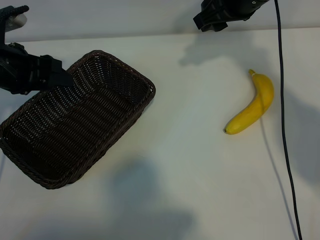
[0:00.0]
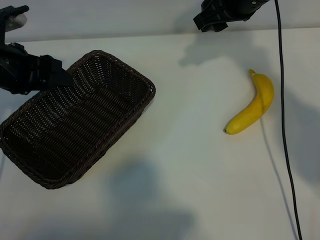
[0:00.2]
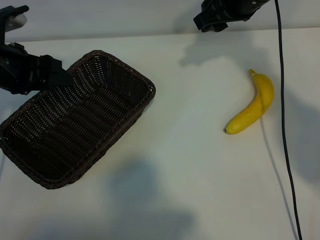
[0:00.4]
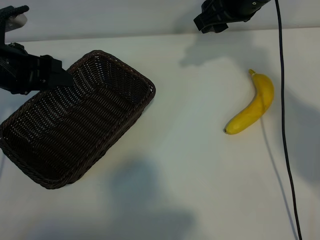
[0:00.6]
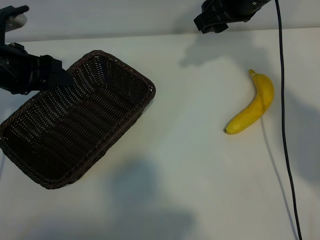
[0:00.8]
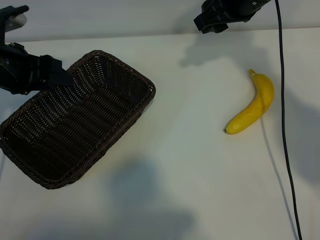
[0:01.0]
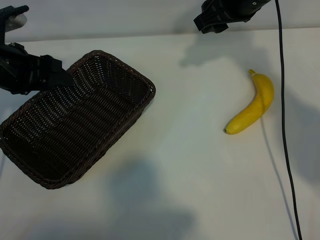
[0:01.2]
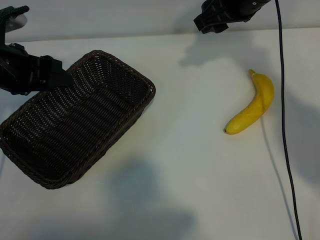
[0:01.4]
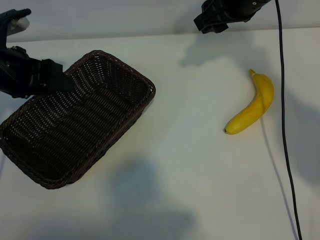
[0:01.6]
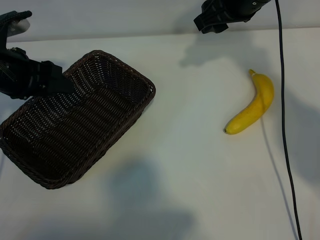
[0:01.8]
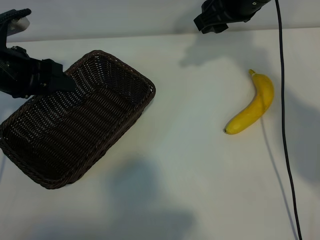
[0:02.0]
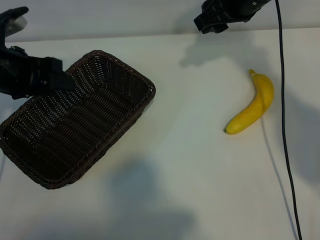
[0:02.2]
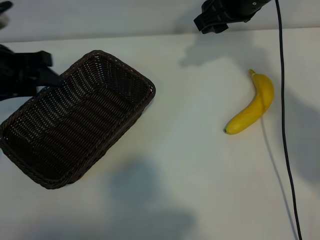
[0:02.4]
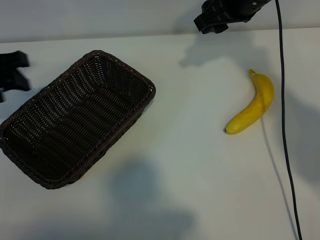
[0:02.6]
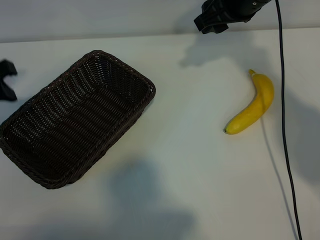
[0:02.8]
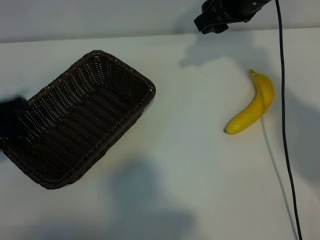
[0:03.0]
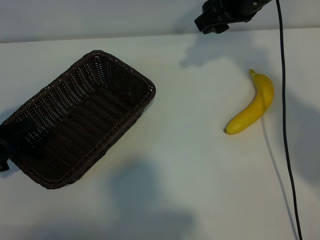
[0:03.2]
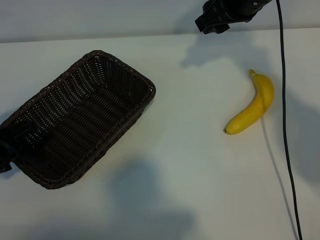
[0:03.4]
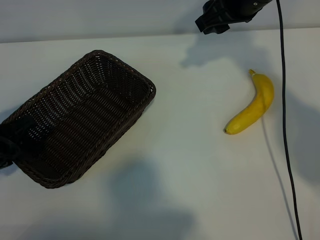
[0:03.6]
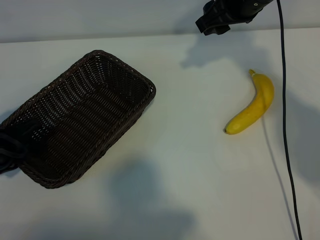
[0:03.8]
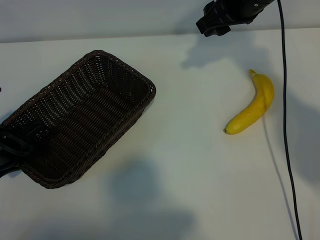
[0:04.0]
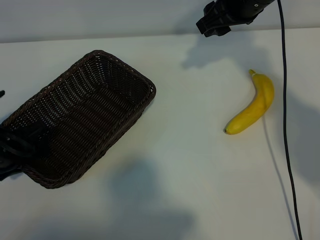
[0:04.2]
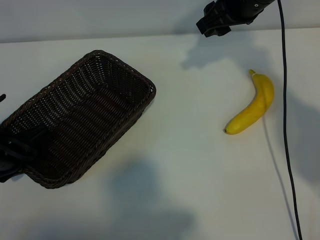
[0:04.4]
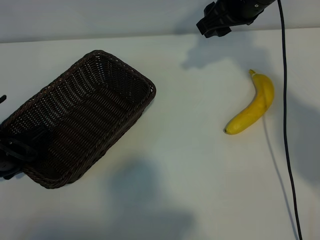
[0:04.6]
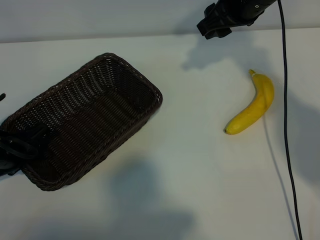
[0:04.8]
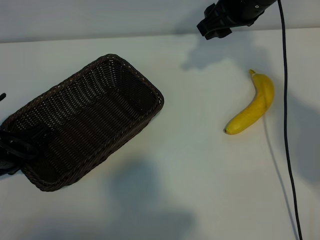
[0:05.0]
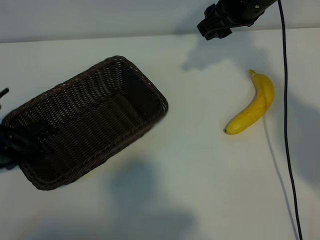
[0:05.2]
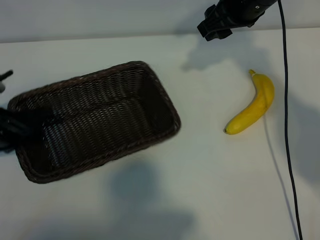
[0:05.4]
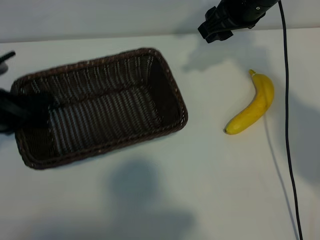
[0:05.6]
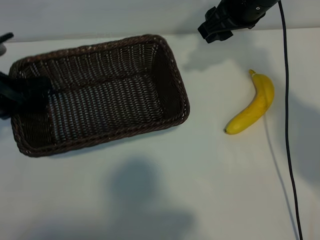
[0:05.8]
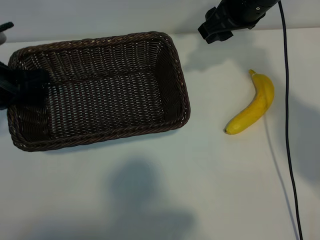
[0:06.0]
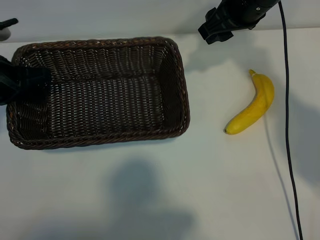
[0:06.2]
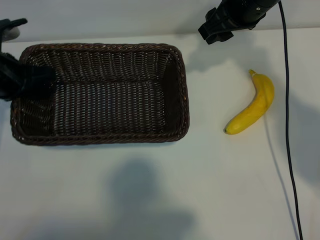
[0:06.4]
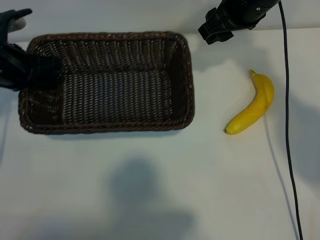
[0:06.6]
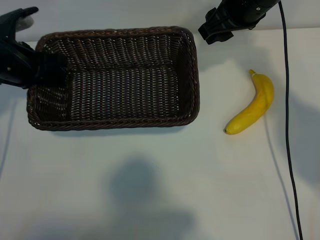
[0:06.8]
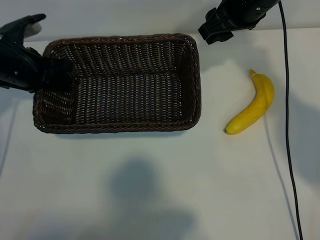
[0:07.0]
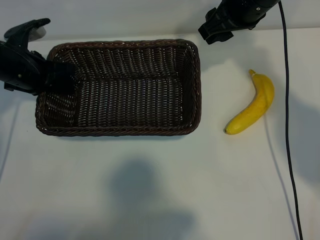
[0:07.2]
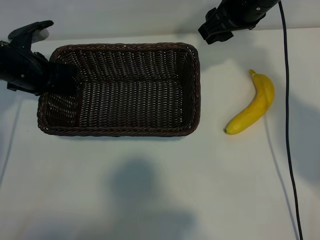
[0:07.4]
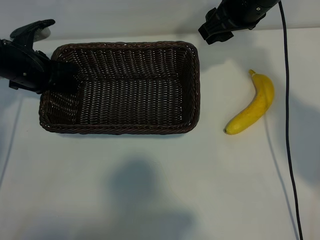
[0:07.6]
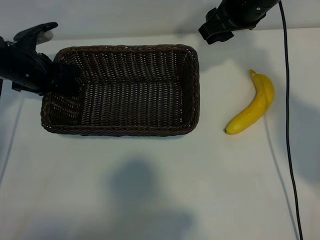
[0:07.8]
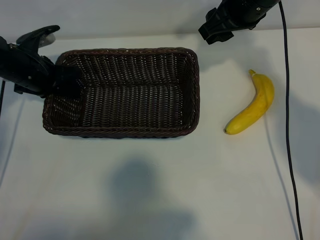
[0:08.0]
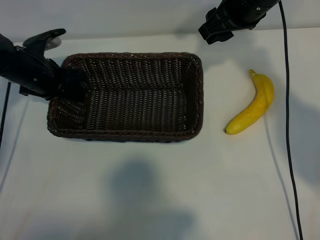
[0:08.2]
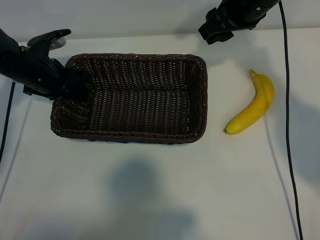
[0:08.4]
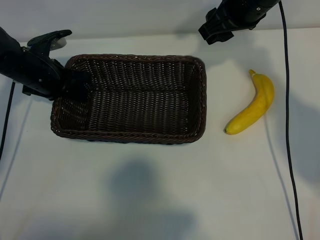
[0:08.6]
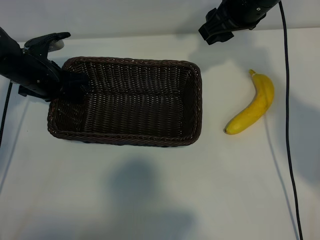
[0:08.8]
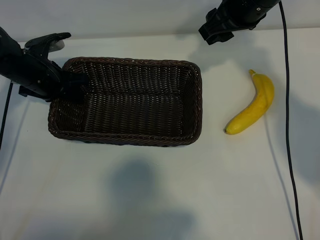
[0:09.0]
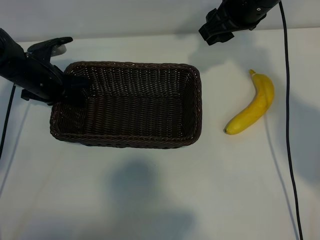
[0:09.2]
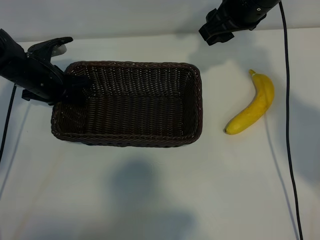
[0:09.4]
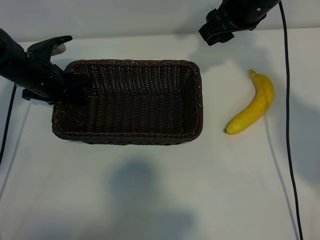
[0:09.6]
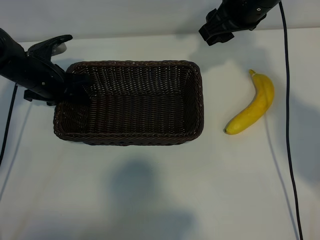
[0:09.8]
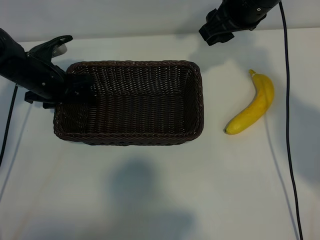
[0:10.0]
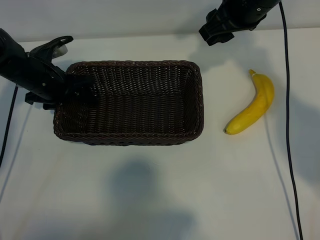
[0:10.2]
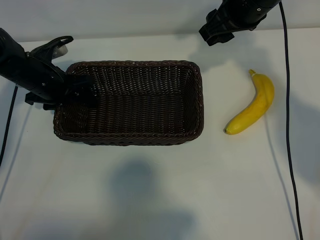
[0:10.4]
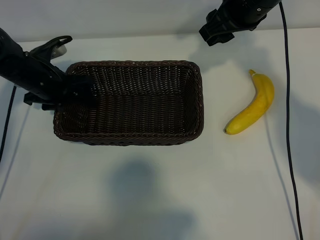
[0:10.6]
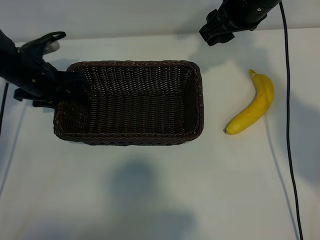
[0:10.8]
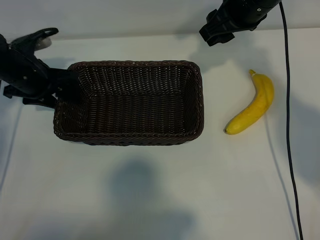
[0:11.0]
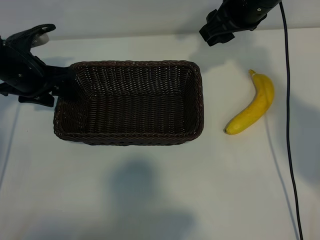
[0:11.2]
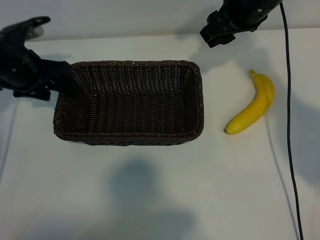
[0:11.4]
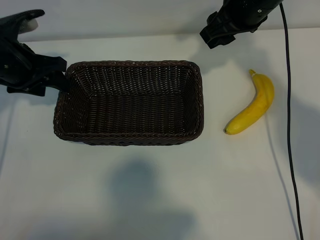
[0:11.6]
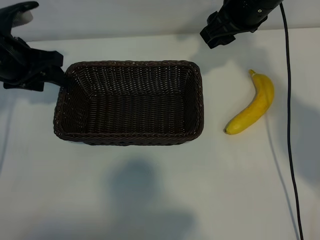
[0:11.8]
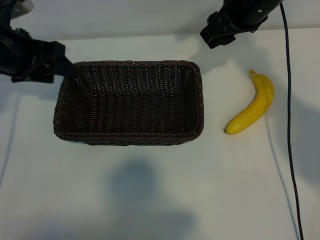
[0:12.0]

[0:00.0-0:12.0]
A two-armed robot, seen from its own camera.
Task of the whole recording: pick up the banana and put it into the basket.
Step, 0:01.4 to 0:05.0: Grasp the basket with the left gripper.
Step, 0:05.2 to 0:10.6: Place the basket in the center of the table with the left gripper.

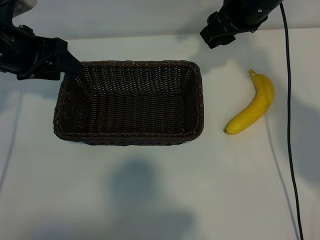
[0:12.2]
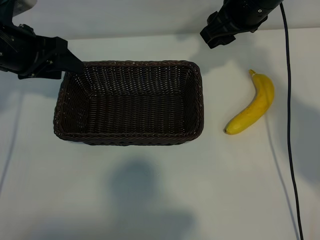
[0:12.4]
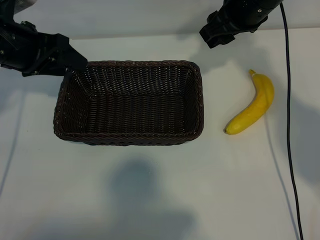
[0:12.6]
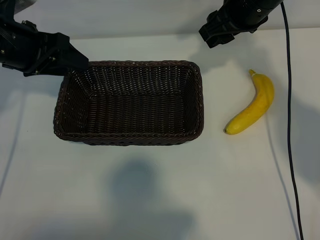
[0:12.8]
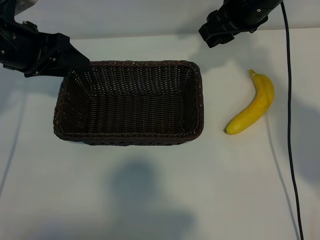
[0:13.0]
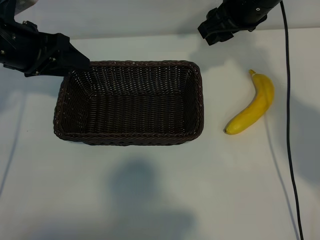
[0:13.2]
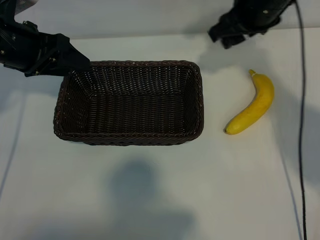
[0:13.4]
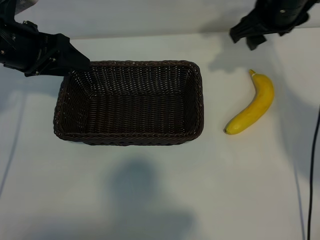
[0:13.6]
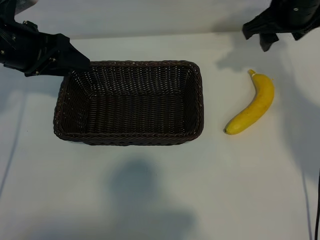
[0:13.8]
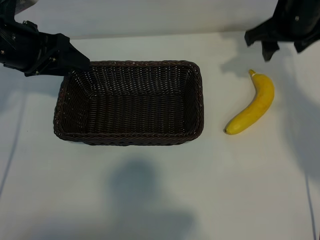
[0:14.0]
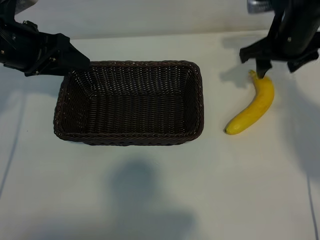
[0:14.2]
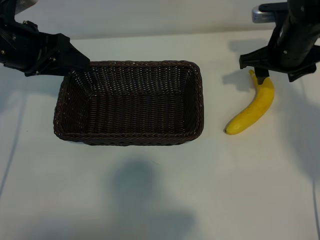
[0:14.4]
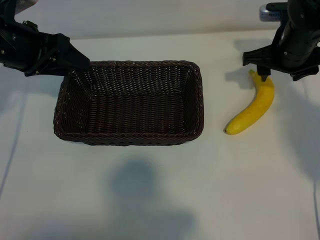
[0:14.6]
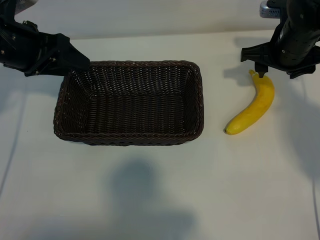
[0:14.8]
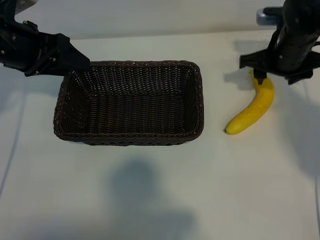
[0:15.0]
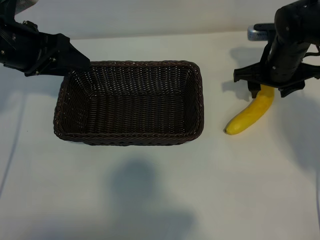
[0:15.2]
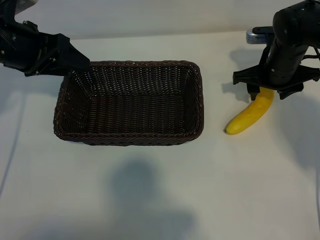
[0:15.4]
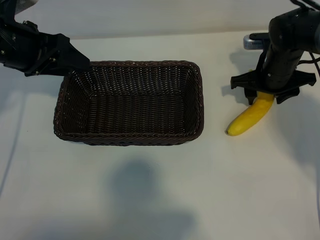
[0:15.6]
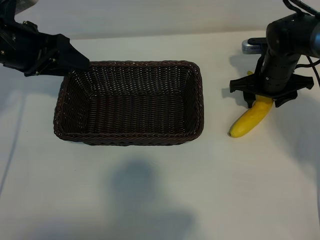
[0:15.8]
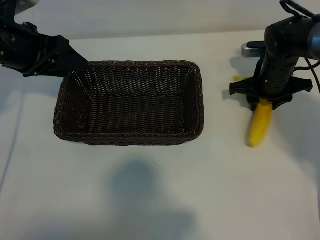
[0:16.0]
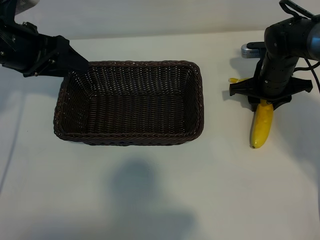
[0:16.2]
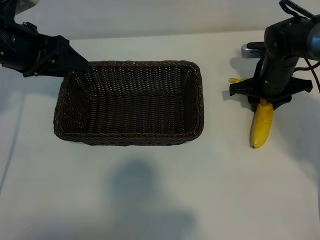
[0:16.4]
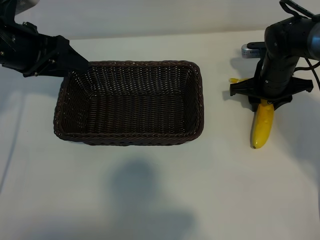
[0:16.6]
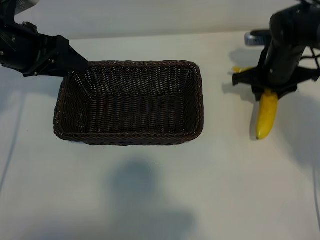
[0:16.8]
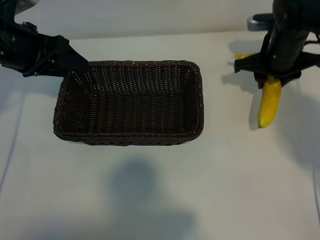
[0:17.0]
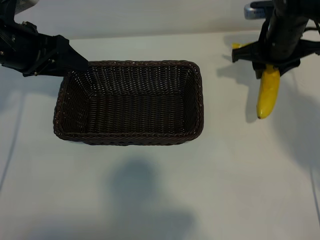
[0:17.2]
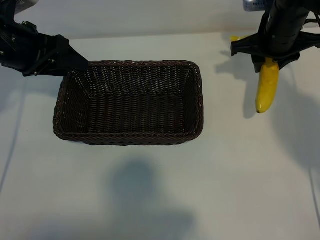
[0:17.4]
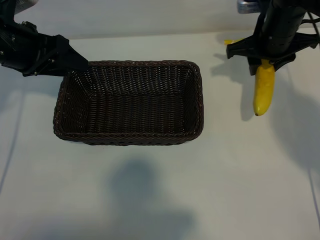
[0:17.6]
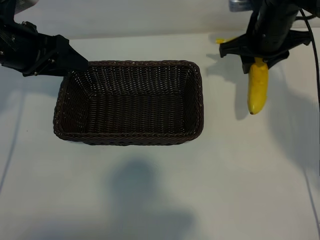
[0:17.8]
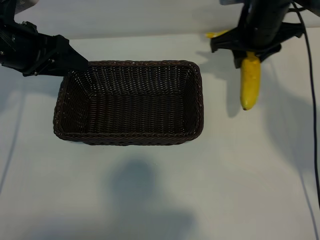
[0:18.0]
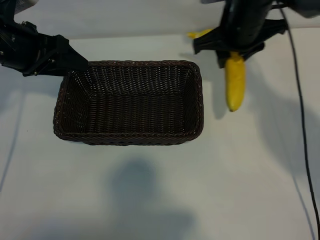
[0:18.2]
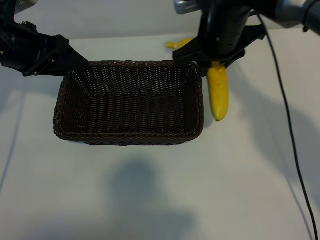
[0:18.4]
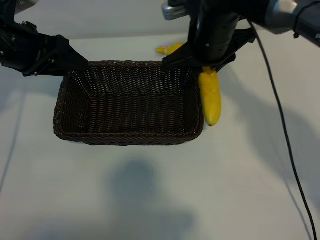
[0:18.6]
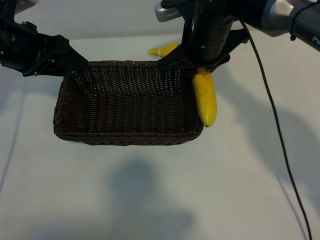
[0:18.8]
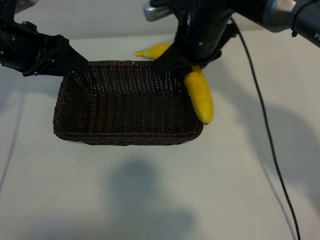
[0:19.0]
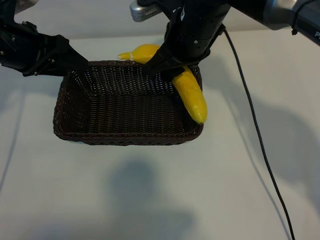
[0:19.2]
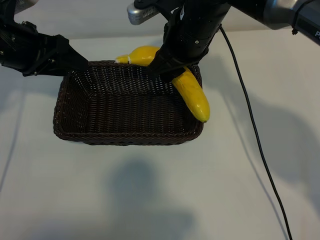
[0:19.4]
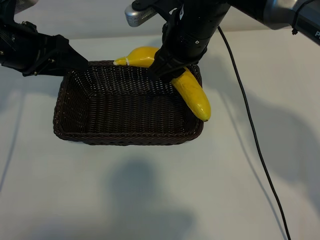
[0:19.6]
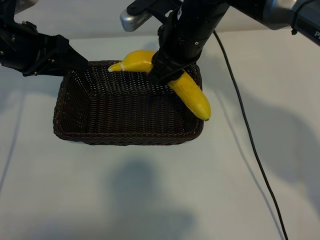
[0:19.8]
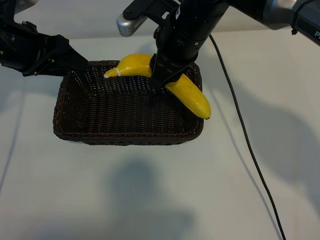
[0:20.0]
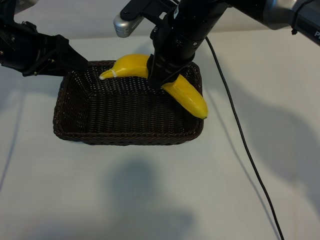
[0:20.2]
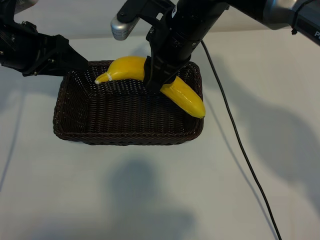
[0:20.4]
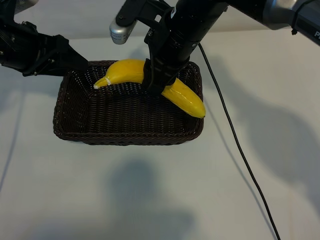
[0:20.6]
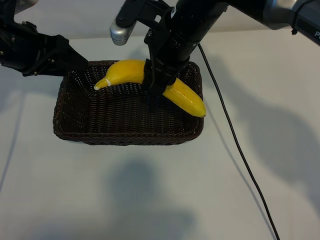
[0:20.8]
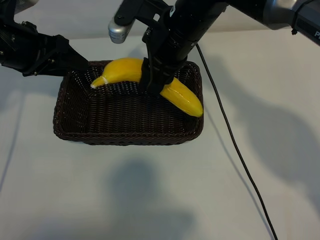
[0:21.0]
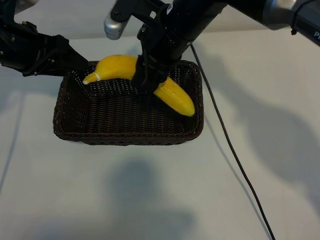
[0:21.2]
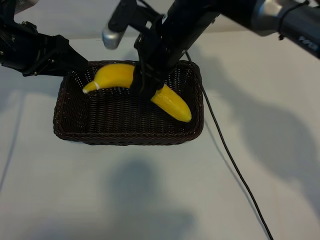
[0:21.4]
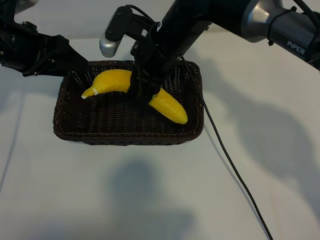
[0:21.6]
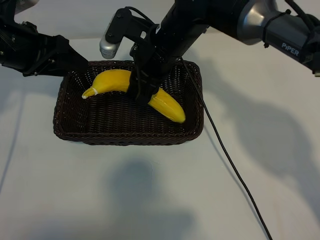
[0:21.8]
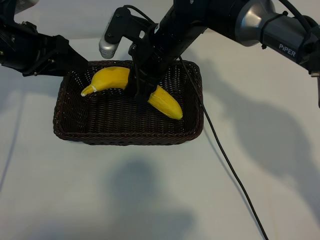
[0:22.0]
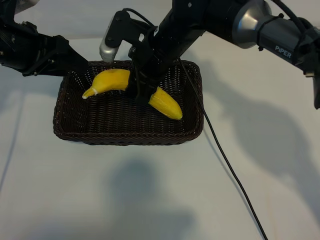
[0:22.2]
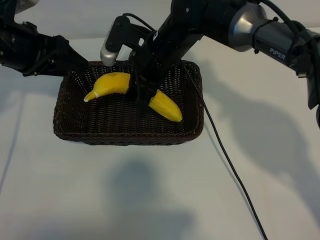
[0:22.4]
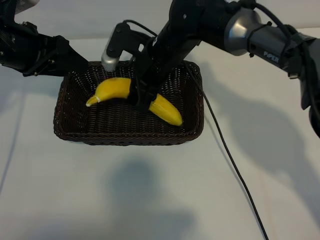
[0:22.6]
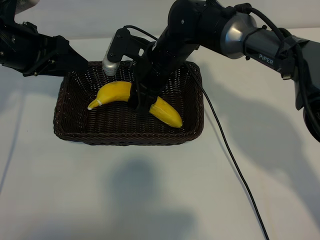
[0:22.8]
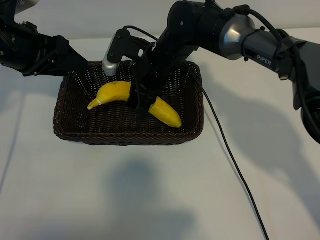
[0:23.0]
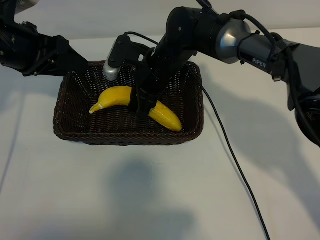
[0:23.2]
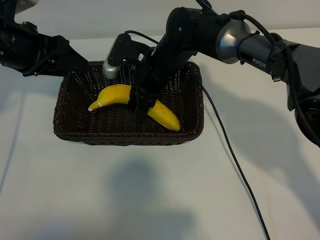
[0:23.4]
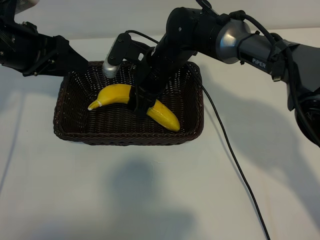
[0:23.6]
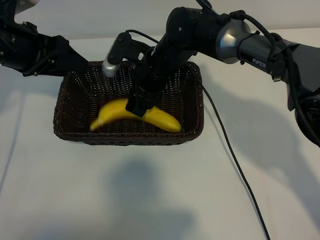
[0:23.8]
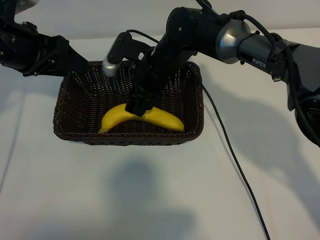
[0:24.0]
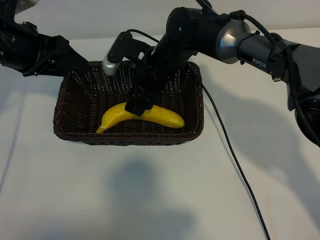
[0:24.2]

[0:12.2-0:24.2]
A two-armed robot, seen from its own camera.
Task of the whole recording: pick up the banana and put it into the basket.
Step, 0:12.2 to 0:16.4: Grasp the banana with right gripper.
